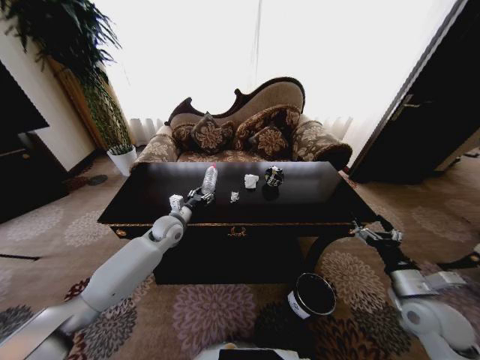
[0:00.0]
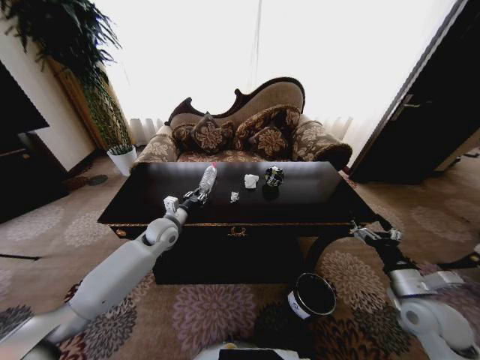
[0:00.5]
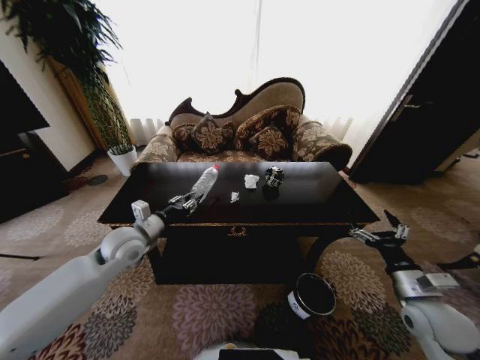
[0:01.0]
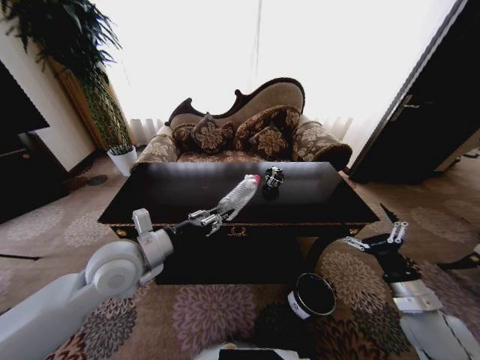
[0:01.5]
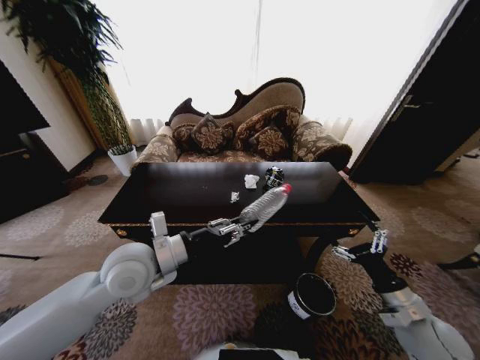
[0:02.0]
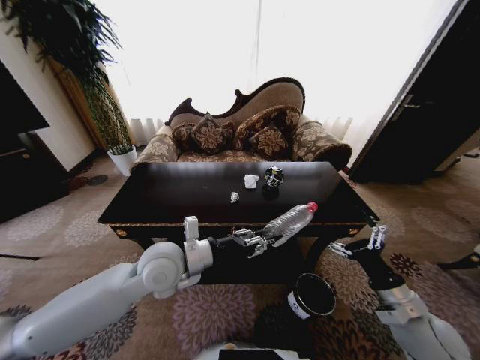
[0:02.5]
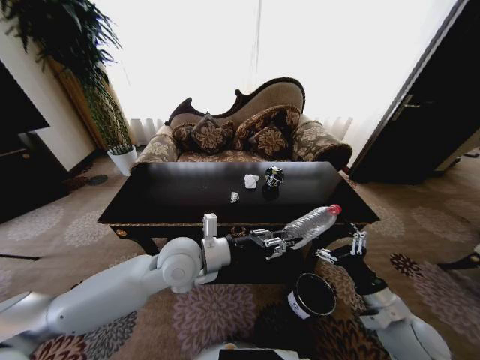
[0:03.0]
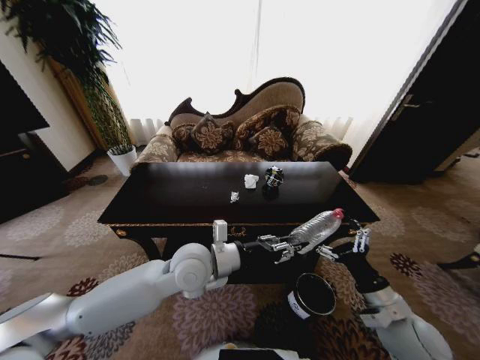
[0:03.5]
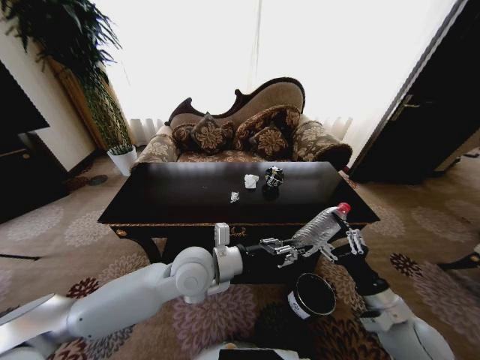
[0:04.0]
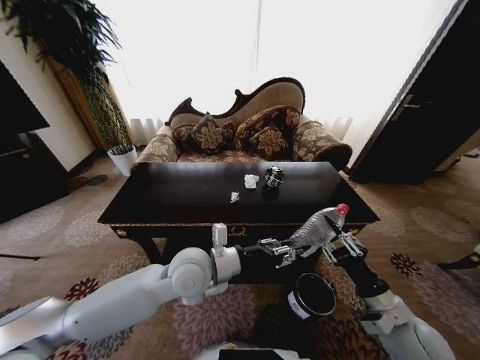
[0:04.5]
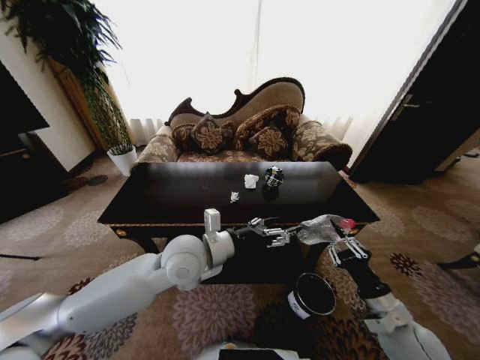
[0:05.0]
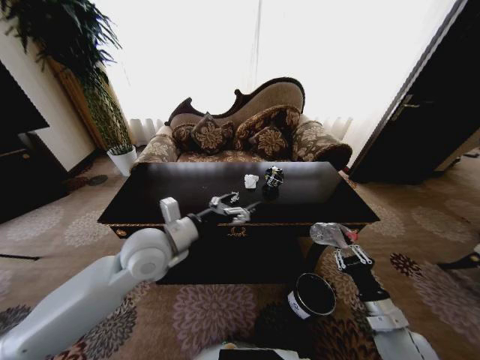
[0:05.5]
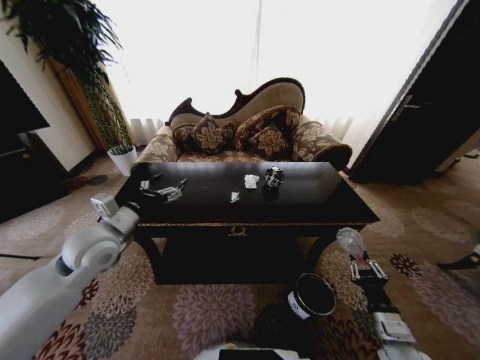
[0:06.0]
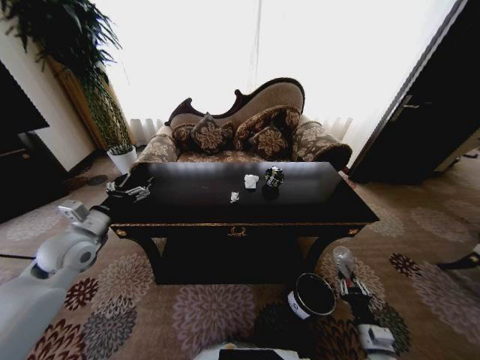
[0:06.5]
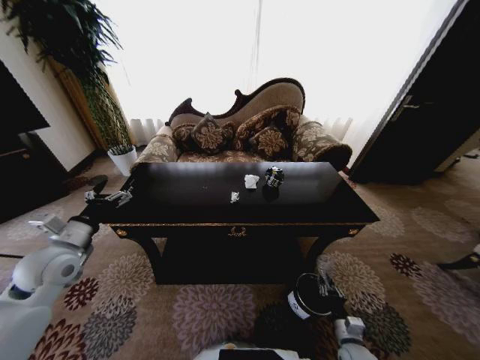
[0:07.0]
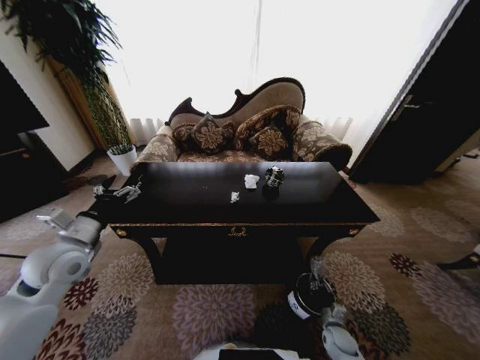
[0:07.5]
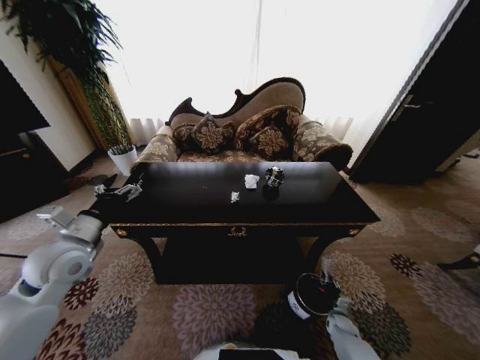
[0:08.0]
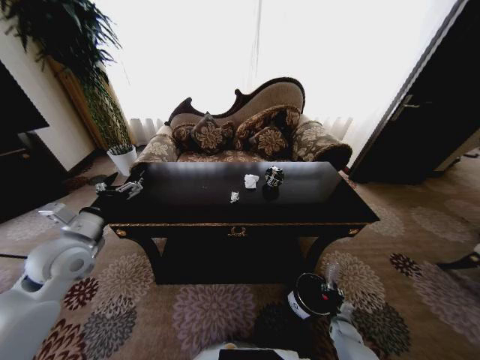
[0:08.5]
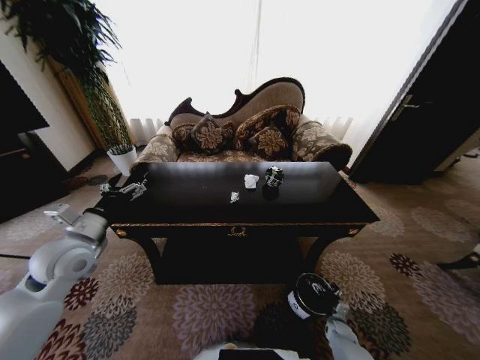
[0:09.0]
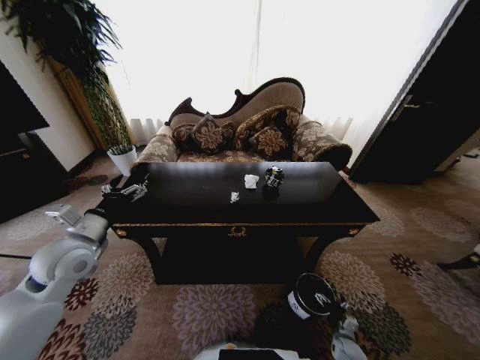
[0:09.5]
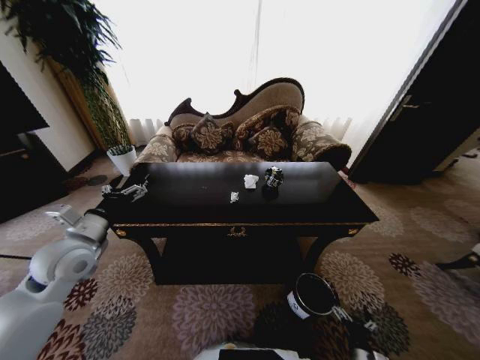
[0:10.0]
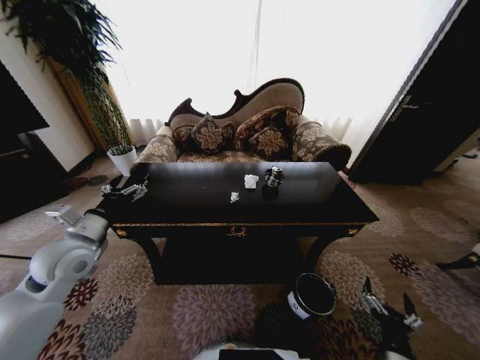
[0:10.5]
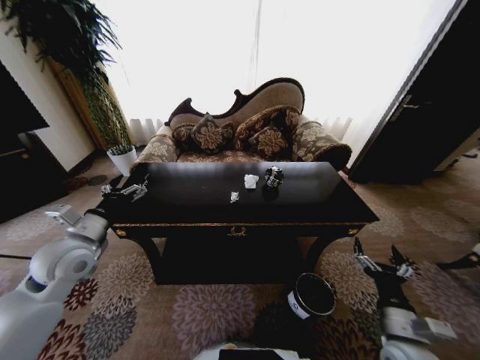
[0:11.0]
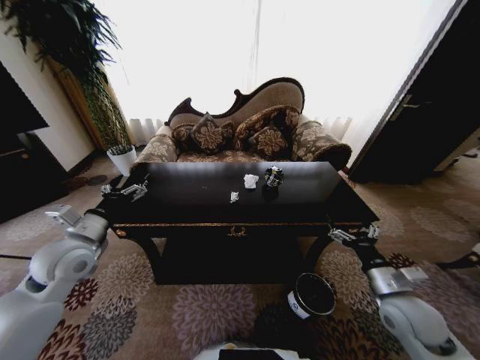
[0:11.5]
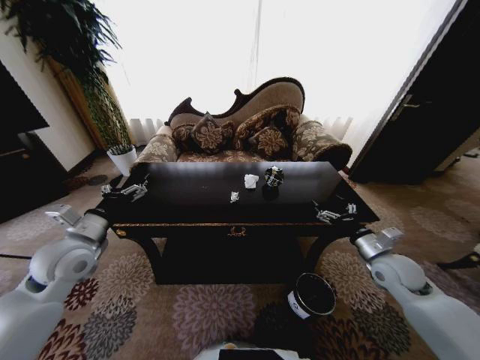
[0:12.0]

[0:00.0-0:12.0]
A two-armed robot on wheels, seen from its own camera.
Task of the whole recording: Move to the front of the table and place the trash on the table into the trash bin.
0:00.0 to 0:02.0: The left gripper goes roughly 25 cm backward and upward, and closes its fingers.
0:02.0 to 0:04.0: The left gripper goes approximately 10 cm to the right, while the right gripper goes roughly 5 cm to the left.
0:04.0 to 0:06.0: The left gripper goes some 20 cm to the left, and opens, while the right gripper is displaced downward by about 10 cm, and closes its fingers.
0:06.0 to 0:08.0: The left gripper goes some 5 cm to the left; the right gripper shifts some 30 cm downward and forward.
0:08.0 to 0:10.0: The right gripper travels backward and upward by about 20 cm, and opens.
0:10.0 to 0:12.0: The right gripper heads upward and forward, covering about 35 cm.

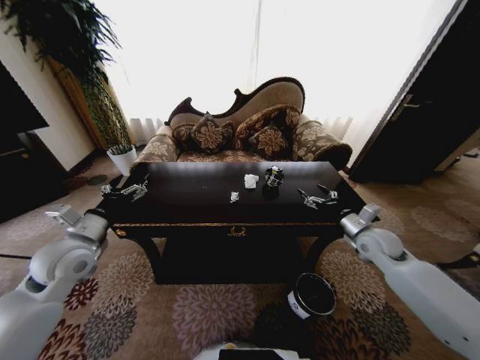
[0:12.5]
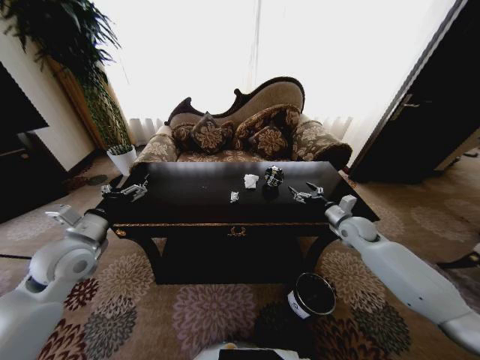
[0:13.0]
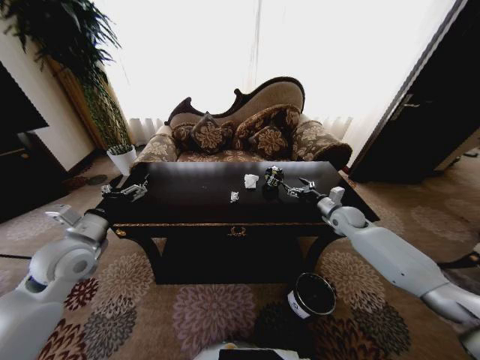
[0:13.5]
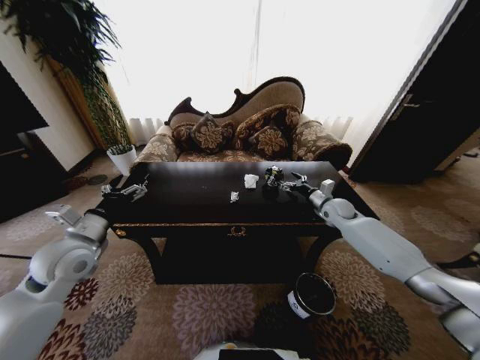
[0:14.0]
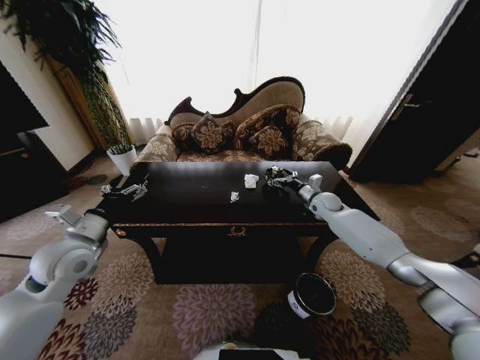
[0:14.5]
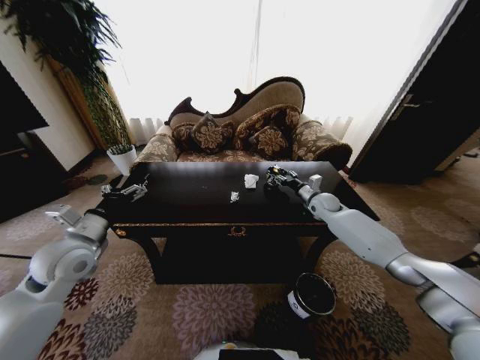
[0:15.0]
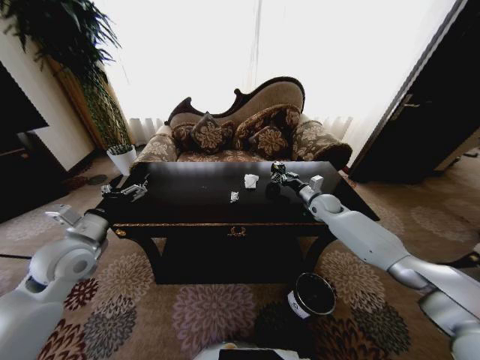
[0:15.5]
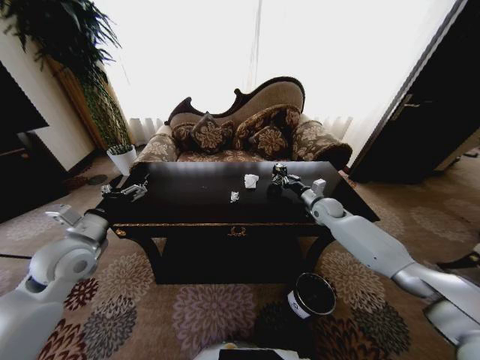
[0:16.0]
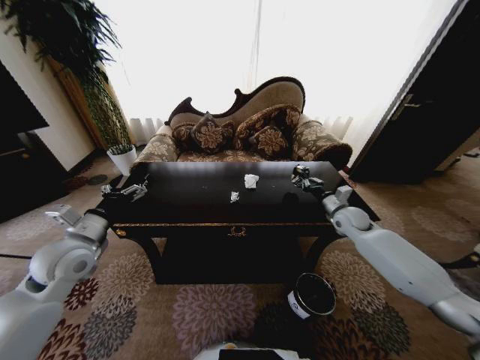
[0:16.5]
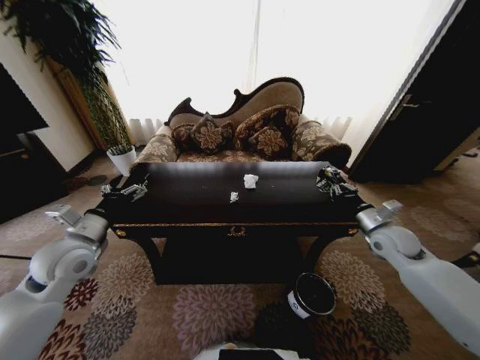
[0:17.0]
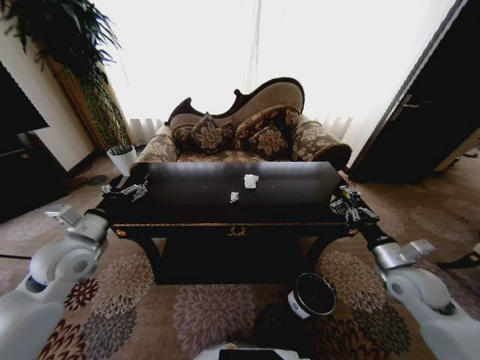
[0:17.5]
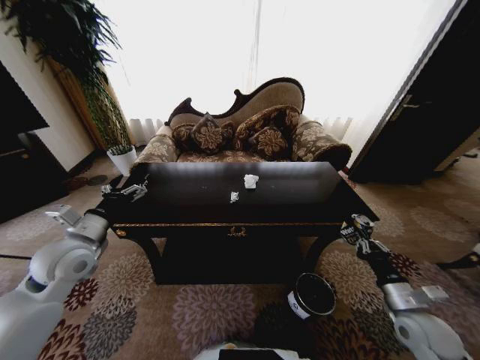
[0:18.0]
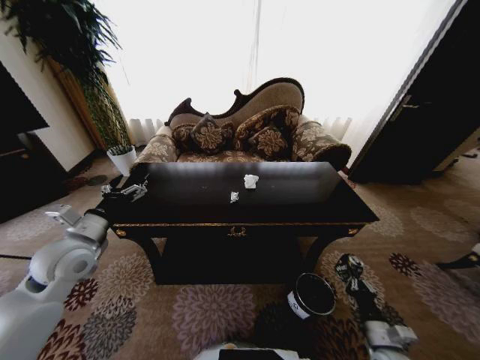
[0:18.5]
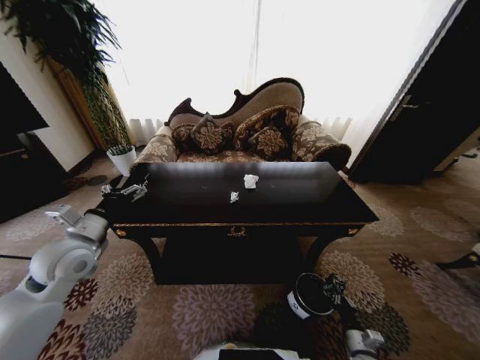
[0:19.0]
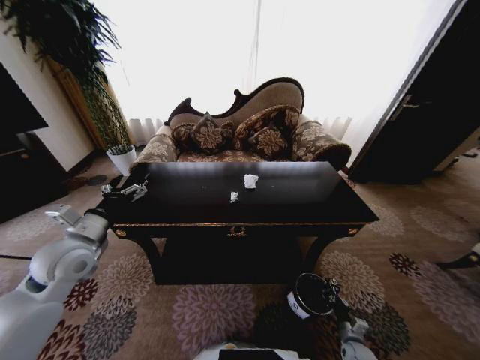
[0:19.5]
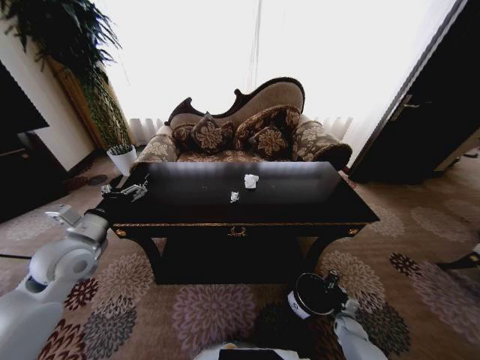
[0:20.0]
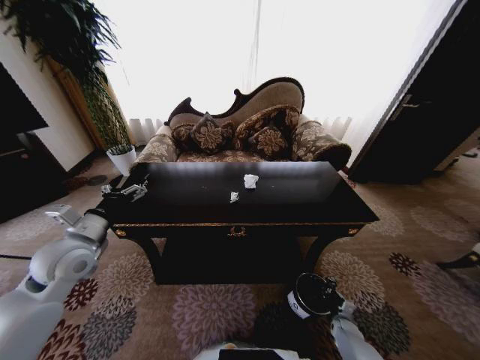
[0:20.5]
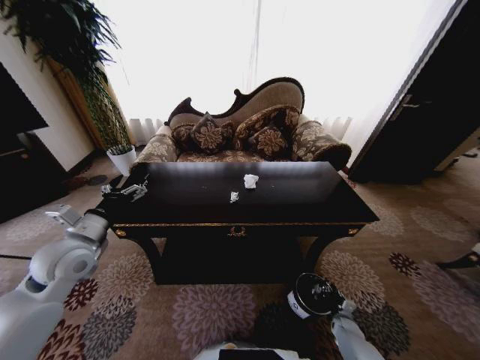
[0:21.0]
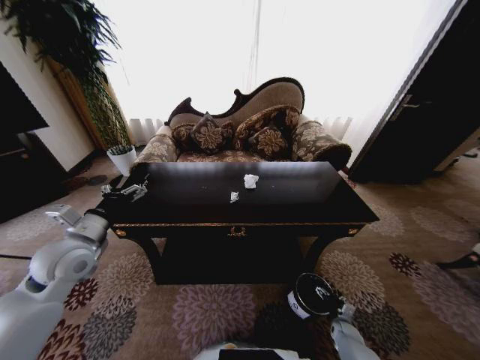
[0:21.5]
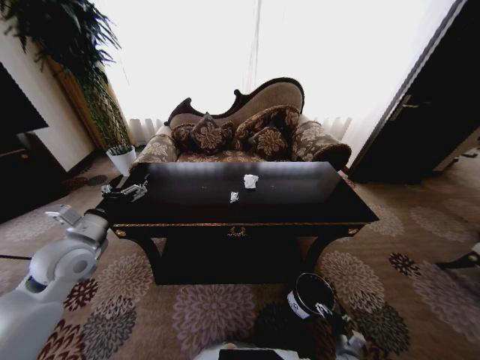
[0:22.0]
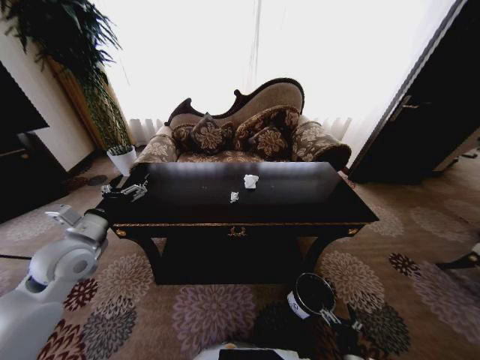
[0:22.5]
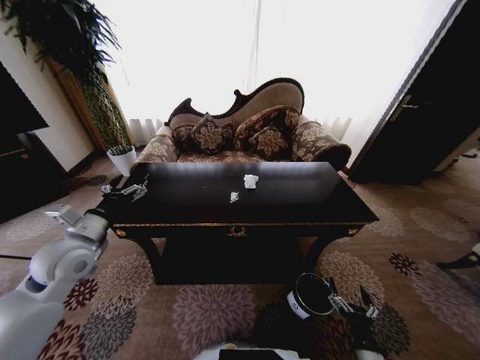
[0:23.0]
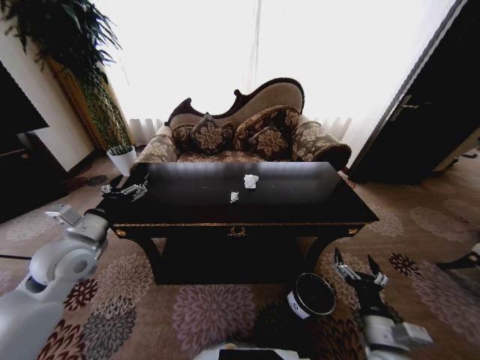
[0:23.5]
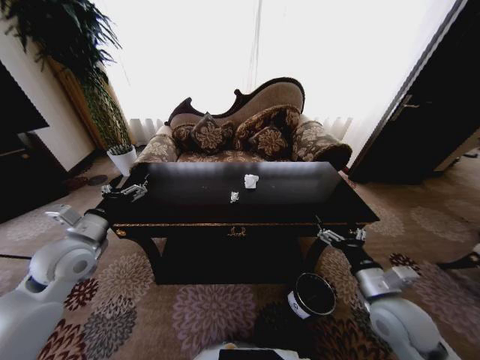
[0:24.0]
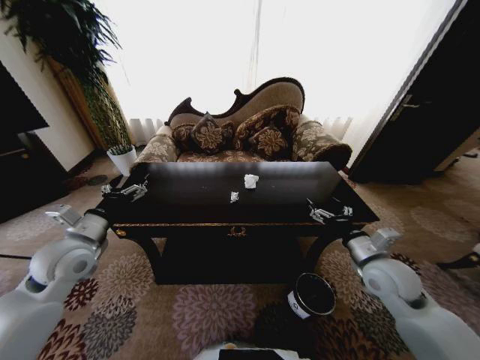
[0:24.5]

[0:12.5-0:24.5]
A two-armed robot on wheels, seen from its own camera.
Task of the whole recording: Move to the front of the table and place the trash on the table into the trash bin.
0:12.5 to 0:14.5: The right gripper heads forward, covering some 20 cm.
0:14.5 to 0:16.5: The right gripper shifts approximately 10 cm backward, and closes up.
0:16.5 to 0:18.5: The right gripper goes about 40 cm backward and downward.
0:18.5 to 0:20.5: The right gripper heads downward and forward, covering some 25 cm.
0:20.5 to 0:22.5: The right gripper is displaced backward, upward and to the left by roughly 25 cm, and opens its fingers.
0:22.5 to 0:24.5: The right gripper goes about 40 cm upward and forward.

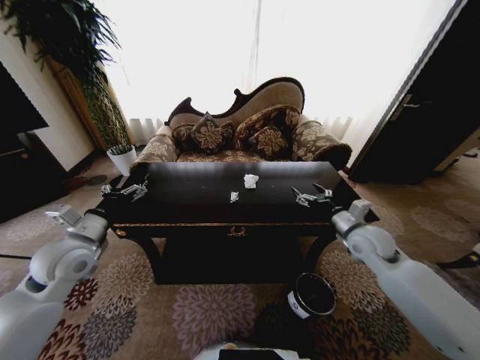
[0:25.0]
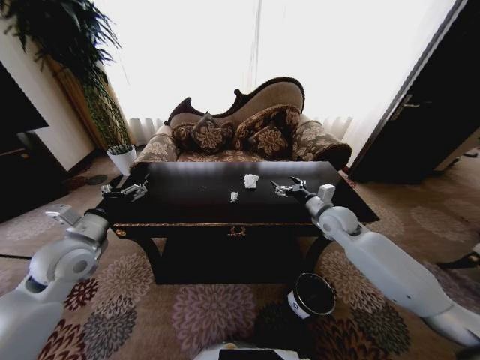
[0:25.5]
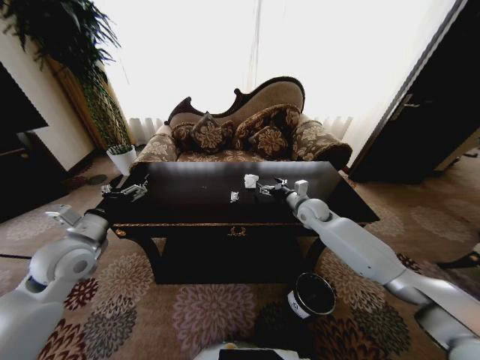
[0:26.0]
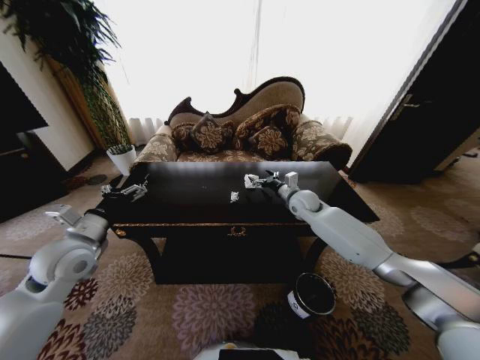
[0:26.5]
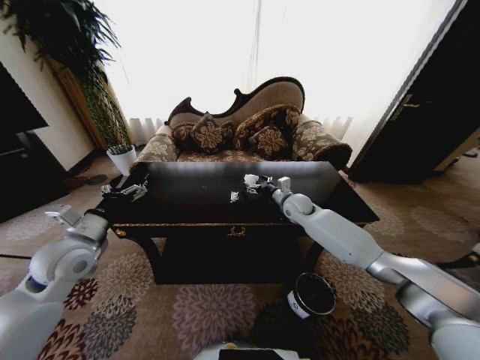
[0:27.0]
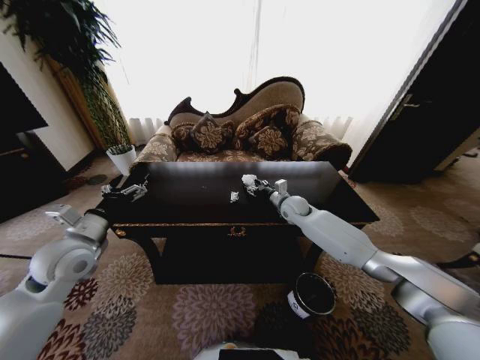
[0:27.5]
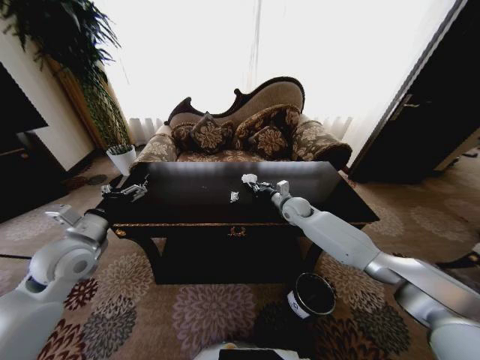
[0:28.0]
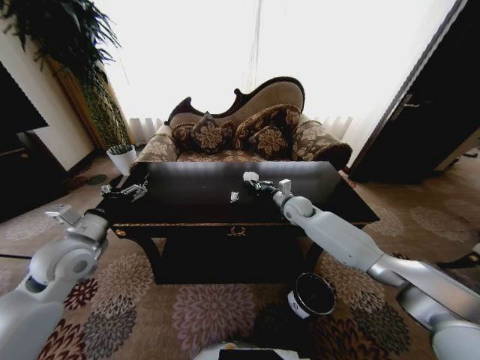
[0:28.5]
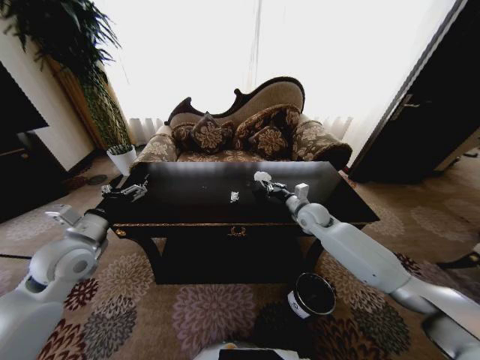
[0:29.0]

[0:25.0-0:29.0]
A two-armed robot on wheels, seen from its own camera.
Task of the whole recording: Move to the front of the table and place the trash on the table into the trash bin.
0:25.0 to 0:27.0: The right gripper is displaced forward and to the left by roughly 20 cm.
0:27.0 to 0:29.0: The right gripper changes place by about 5 cm, and closes its fingers.
